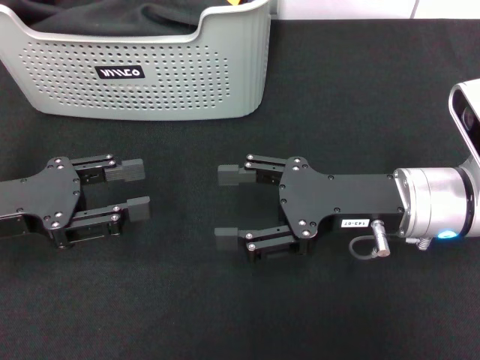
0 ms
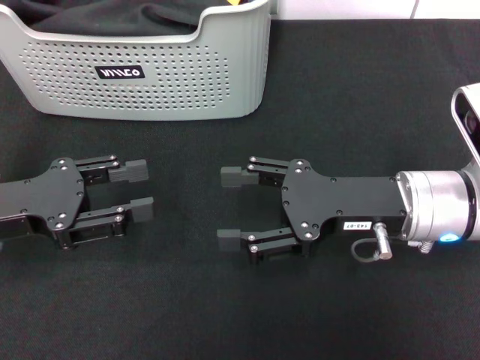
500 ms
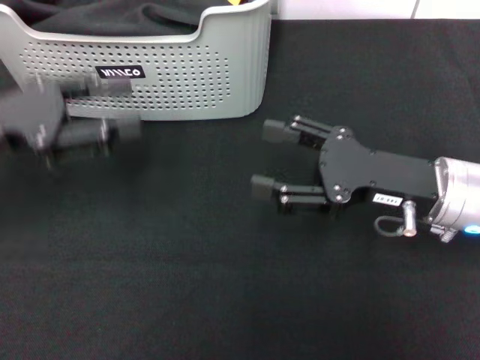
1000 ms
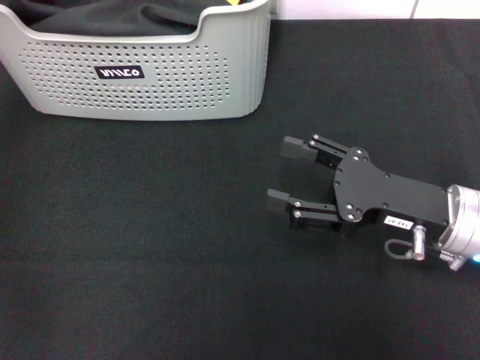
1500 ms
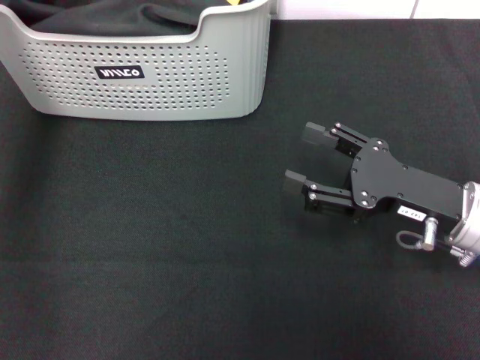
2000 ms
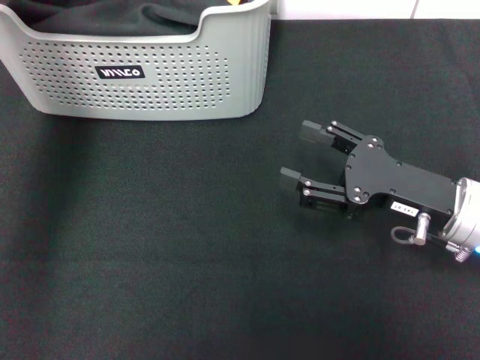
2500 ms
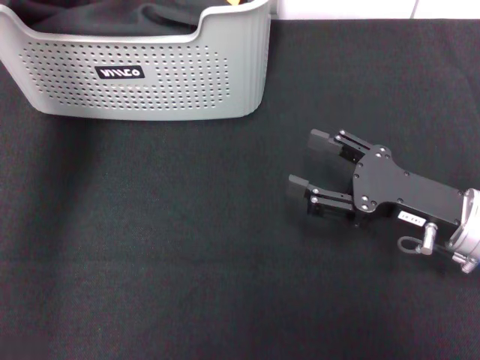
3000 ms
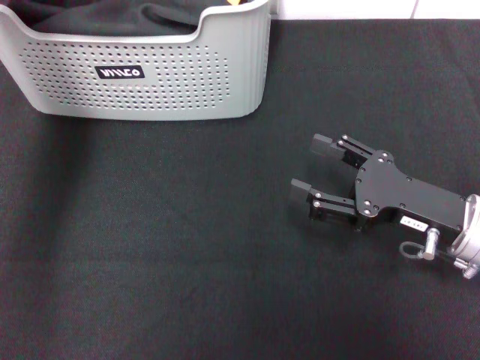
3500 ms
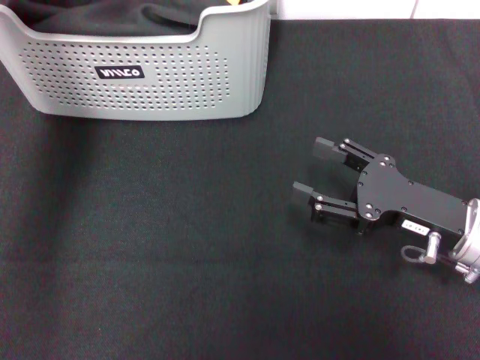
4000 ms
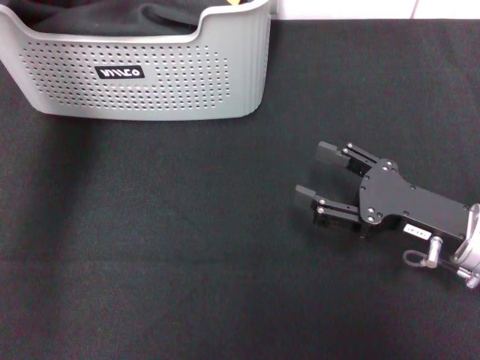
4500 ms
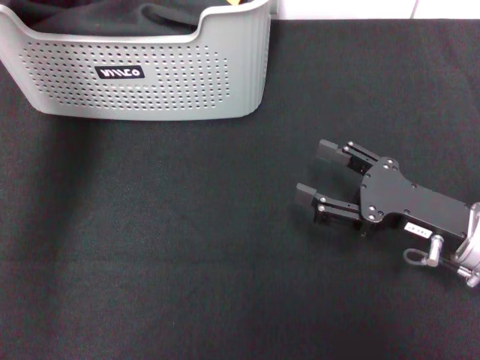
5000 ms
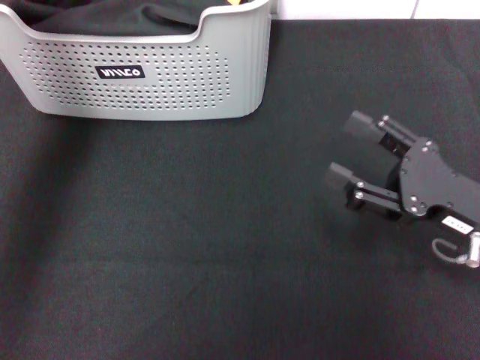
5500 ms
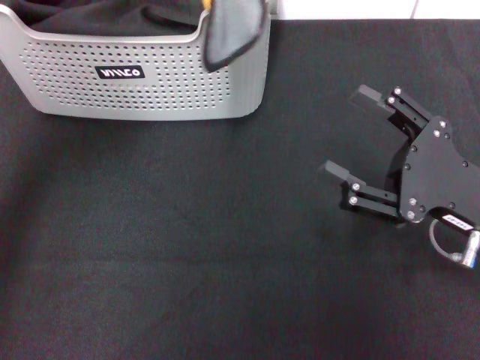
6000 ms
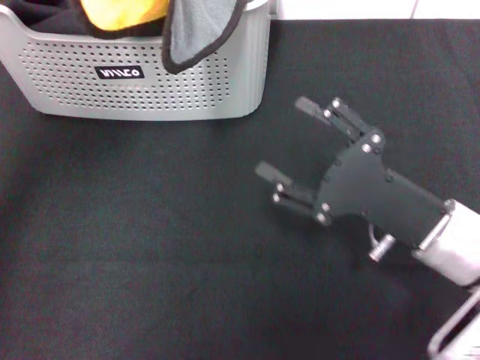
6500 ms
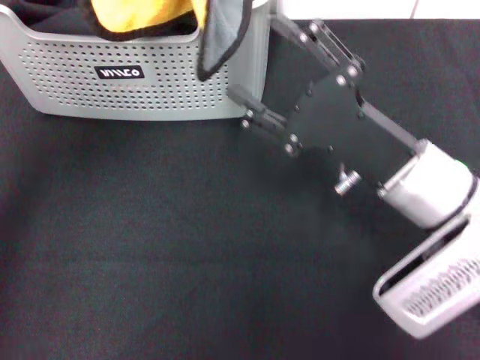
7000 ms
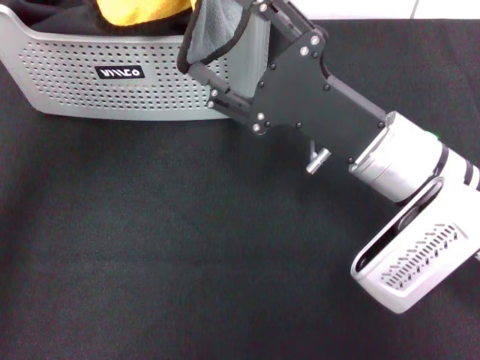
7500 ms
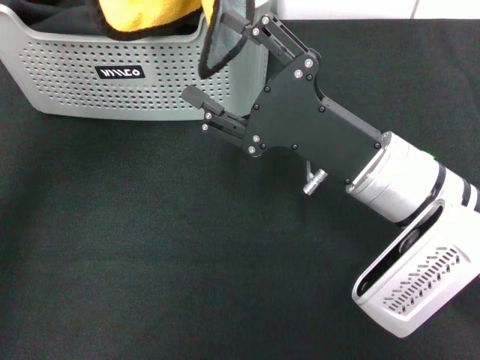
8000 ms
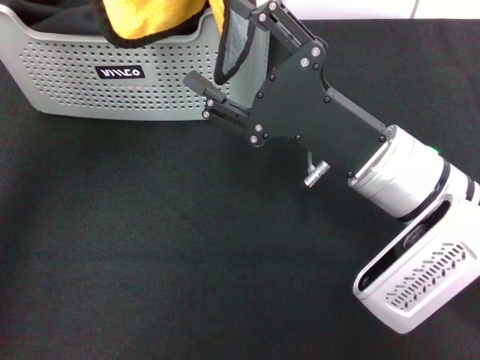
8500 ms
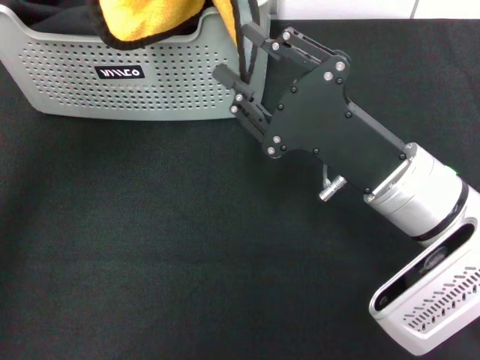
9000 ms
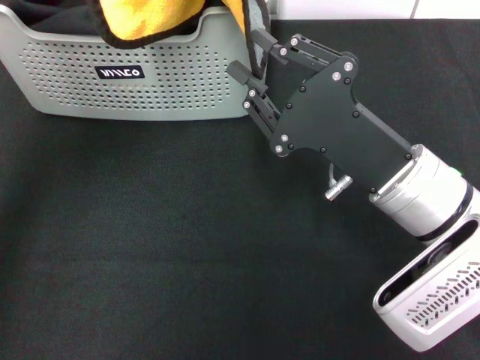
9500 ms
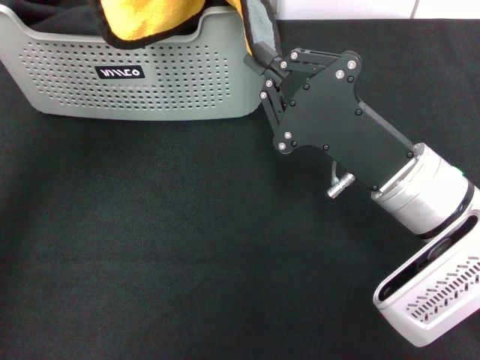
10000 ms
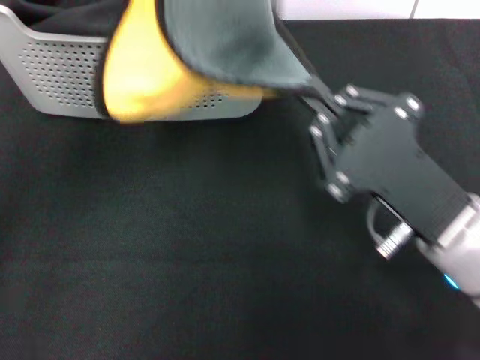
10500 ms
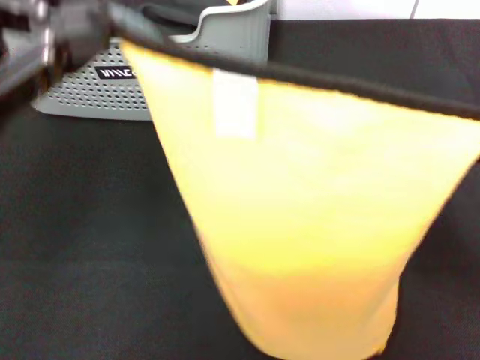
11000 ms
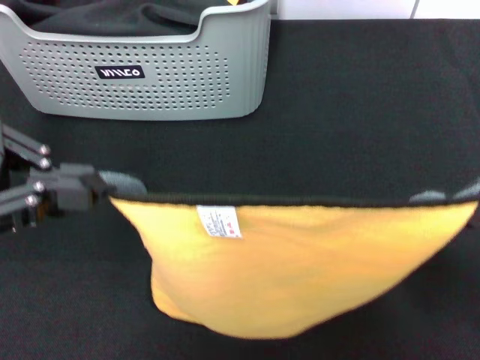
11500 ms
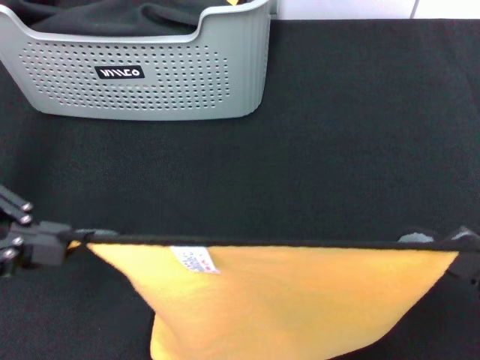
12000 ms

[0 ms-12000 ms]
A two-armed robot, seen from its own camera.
Task of the whole recording: pick up the towel from the storage box and lay it flat on the black tablecloth.
Step, 0 ms to 4500 ms: Pick up a towel with the left gripper.
Step, 5000 ms to 10000 ms: Spread the towel flat with the left gripper.
0 ms to 2000 ms: The right gripper heads to the right, covering about 5 cm. The left gripper goes approximately 25 cm upward and forward.
2000 ms to 4000 ms: The left gripper shifts by roughly 5 cm.
4000 ms to 6000 ms: The left gripper is displaced backward and upward by approximately 20 cm, and closes up.
6000 ms to 8000 ms: The right gripper moves to the left, about 10 cm.
8000 ms to 10000 ms: The right gripper closes.
10000 ms to 12000 ms: The left gripper shifts about 15 cm to the left, downward and backward. The right gripper moves to the right and backward, about 15 cm.

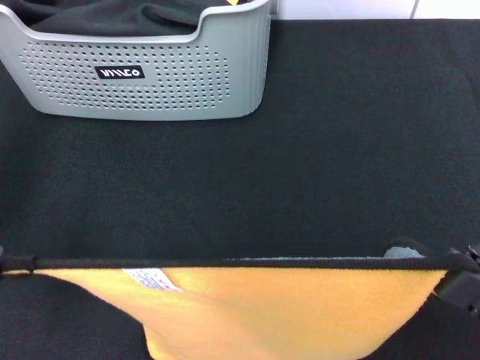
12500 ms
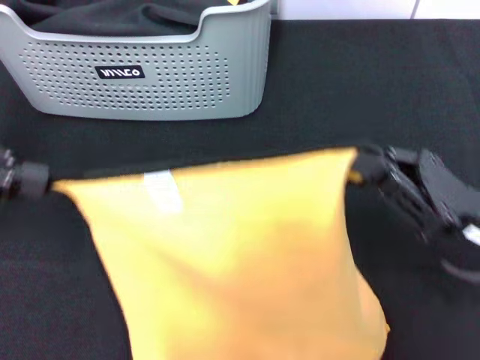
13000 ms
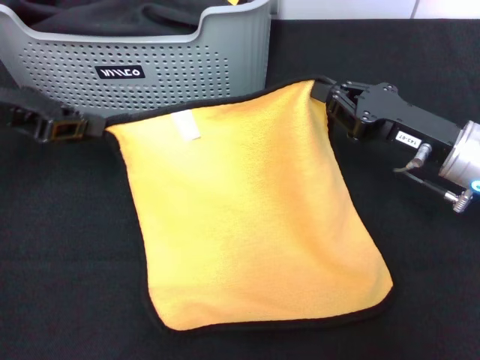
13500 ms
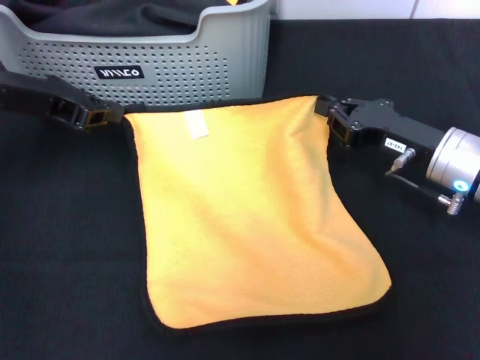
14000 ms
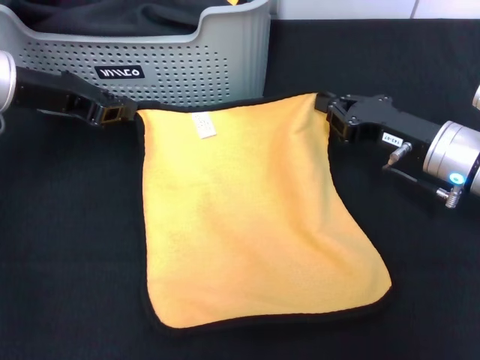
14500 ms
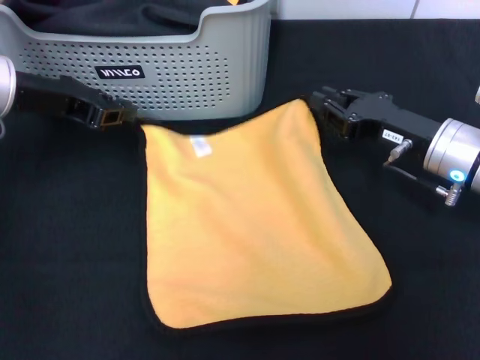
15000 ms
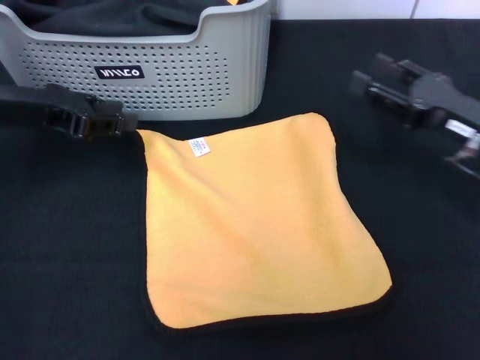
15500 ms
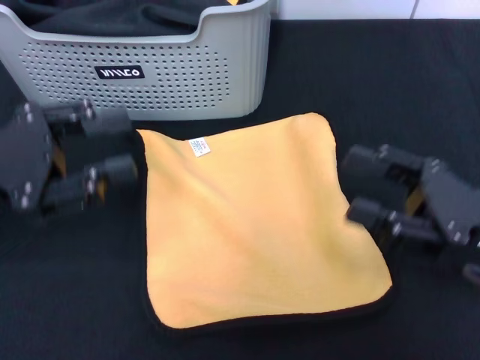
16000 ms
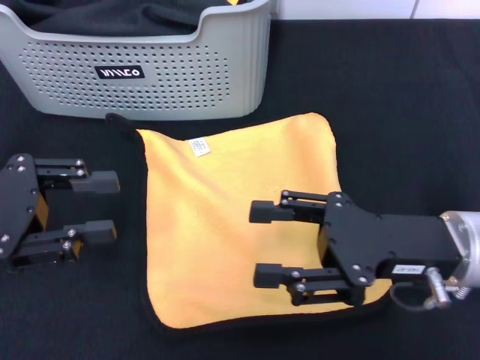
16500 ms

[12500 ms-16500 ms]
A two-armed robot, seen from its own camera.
Task of the whole recording: pick up the towel from the storage box and lay it flat on the black tablecloth.
Step, 12500 ms to 15000 ms: Spread the towel flat with the right gripper.
12500 ms to 14500 ms: The left gripper travels forward, downward and to the right by about 20 cm, while the right gripper heads forward, covering approximately 20 cm.
14500 ms to 16500 ms: The grippers both shift backward by approximately 10 cm. The left gripper opens its fingers. The right gripper opens its fingers.

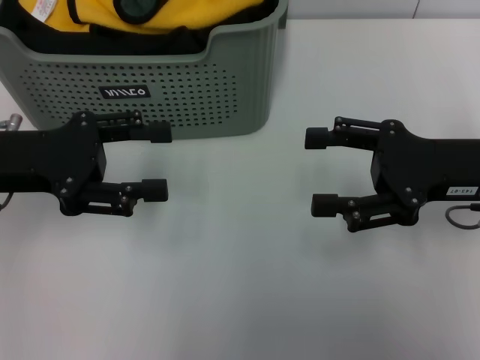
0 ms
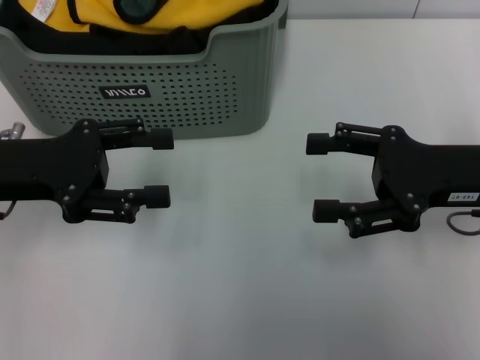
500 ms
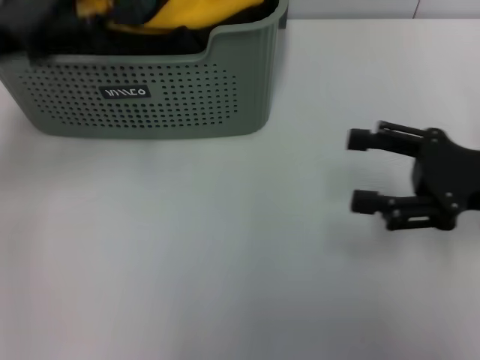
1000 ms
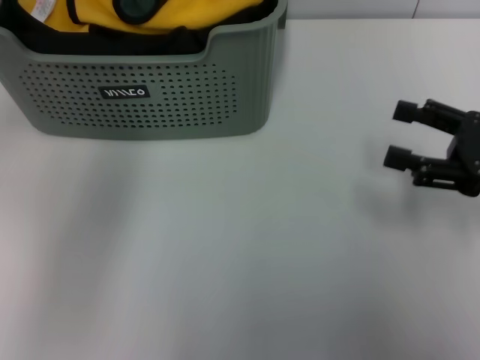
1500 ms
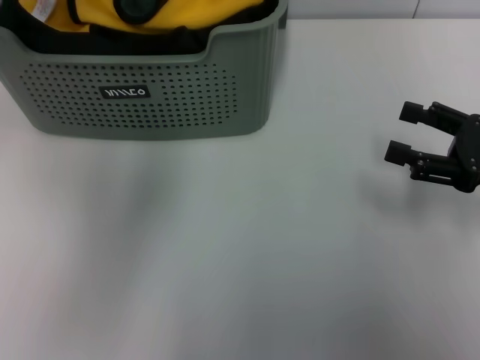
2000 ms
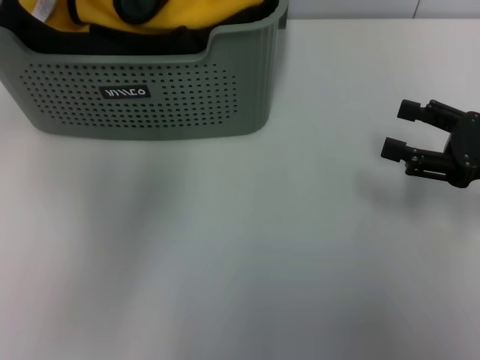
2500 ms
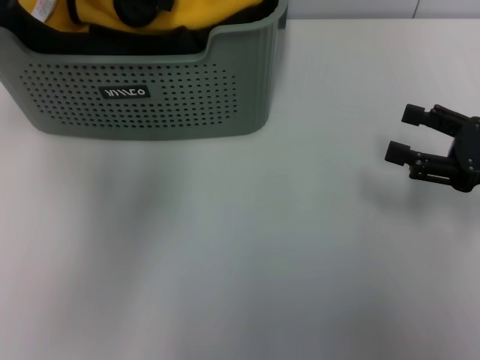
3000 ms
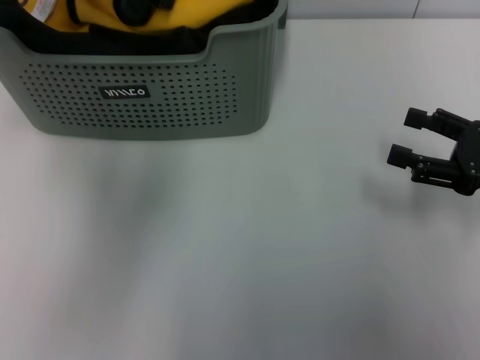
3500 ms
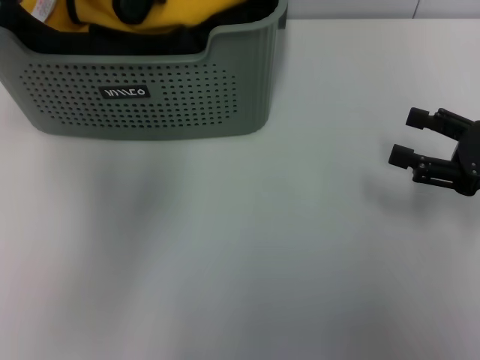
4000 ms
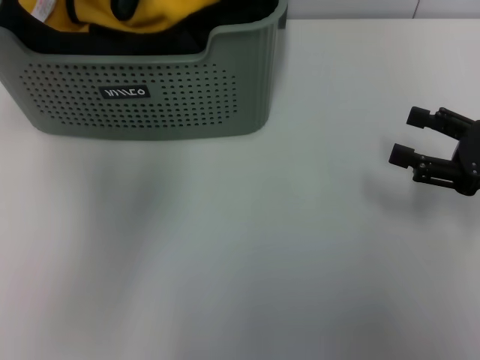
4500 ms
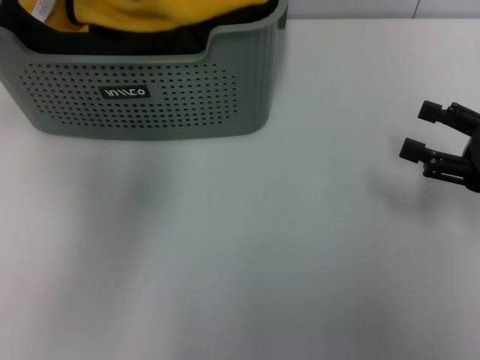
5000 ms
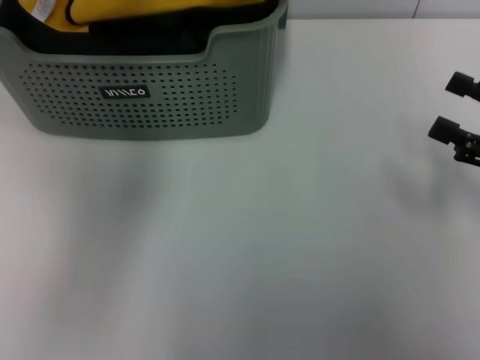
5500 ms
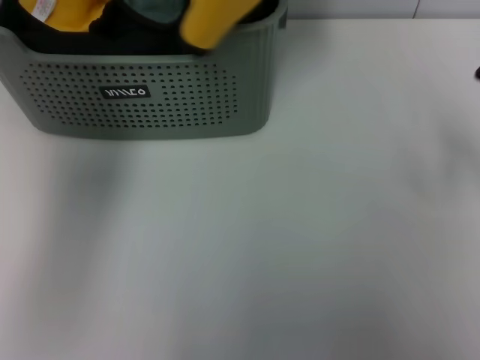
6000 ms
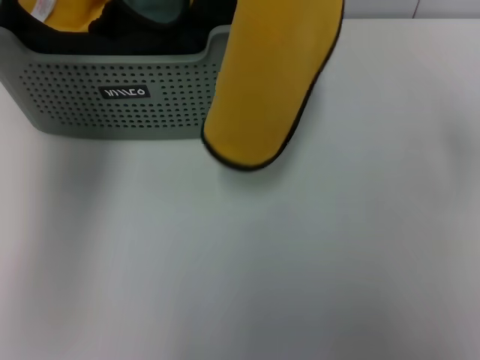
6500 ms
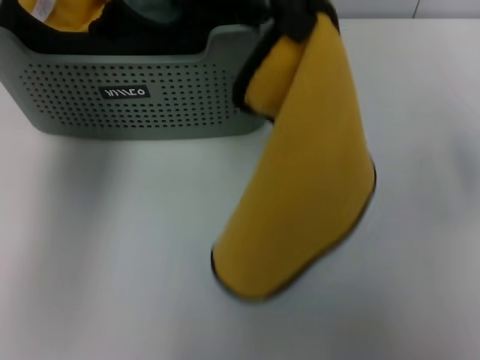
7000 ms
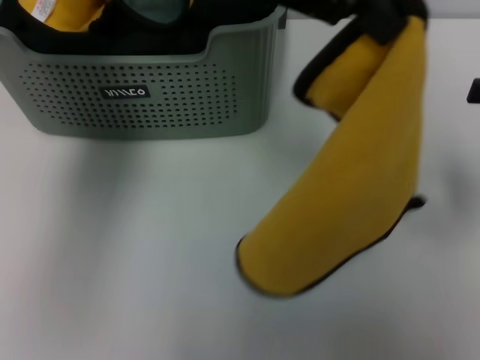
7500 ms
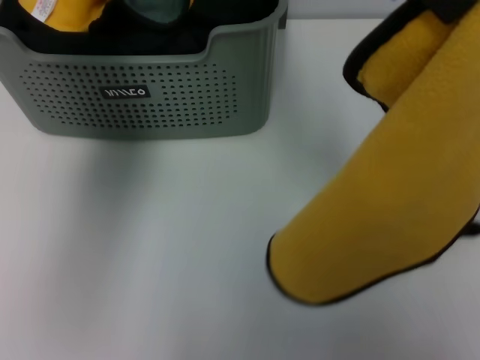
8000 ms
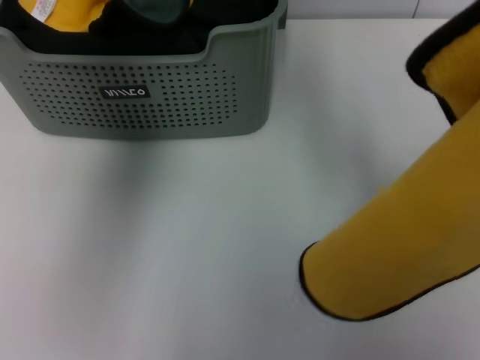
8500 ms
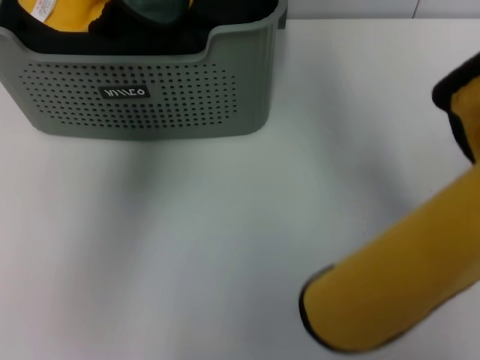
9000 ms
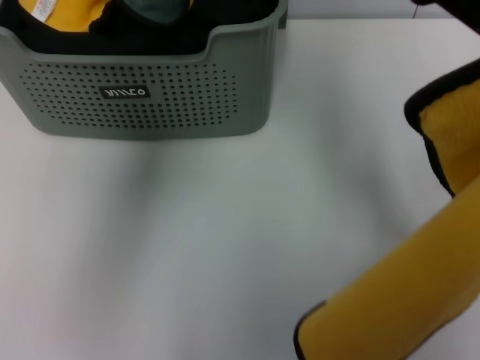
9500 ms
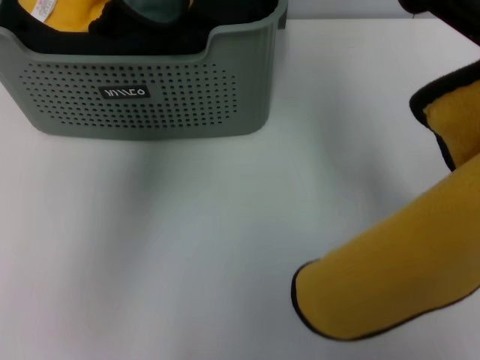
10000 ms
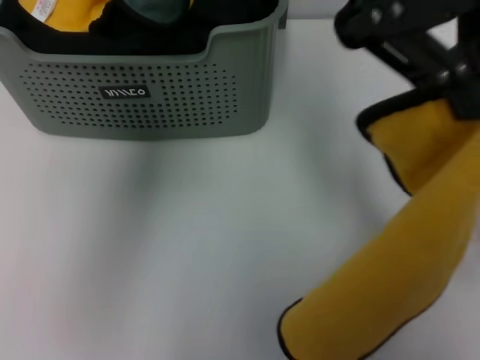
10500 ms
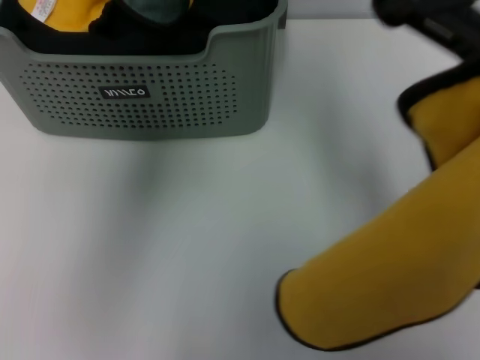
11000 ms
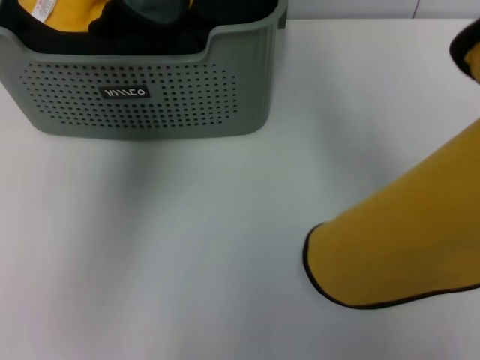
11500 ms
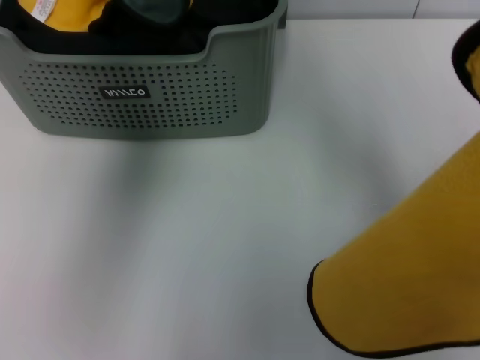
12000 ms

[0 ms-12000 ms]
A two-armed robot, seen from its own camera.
Task of the whole recording: pick up the towel from the storage box and lay it flat on the table.
Step, 0 ms to 4500 ms: Pick up a towel with the left gripper.
0 ms to 2000 ms: The left gripper shifts about 20 cm upward and forward, while the right gripper shifts some 5 cm to the right.
2000 ms to 4000 ms: The left gripper moves downward, approximately 5 cm.
4000 ms to 6000 ms: The right gripper is displaced upward by some 5 cm. The left gripper travels upward by some 10 cm, and closes up.
6000 ms to 8000 ms: The left gripper travels to the right by some 15 cm.
8000 ms to 10000 ms: The left gripper shifts approximately 5 cm to the right.
